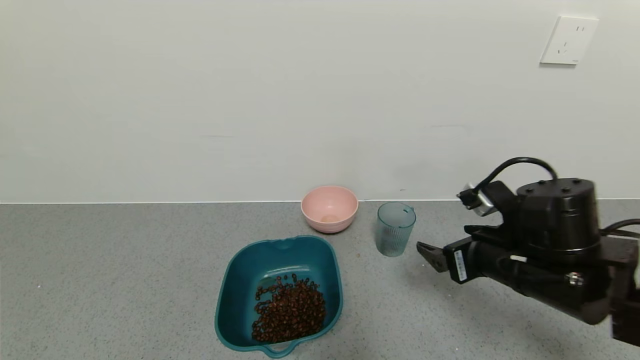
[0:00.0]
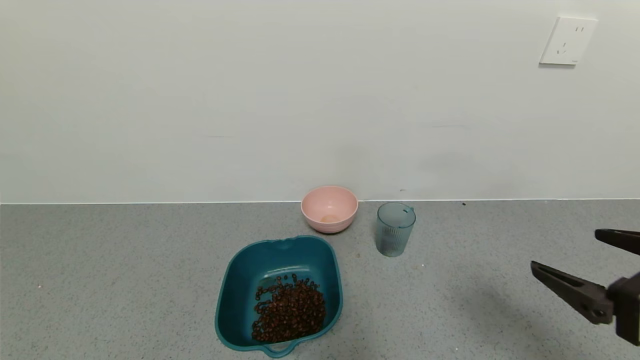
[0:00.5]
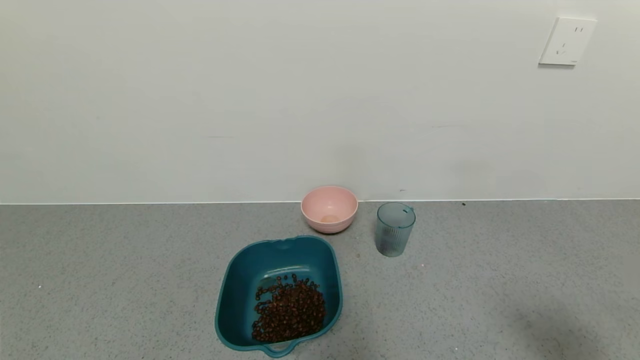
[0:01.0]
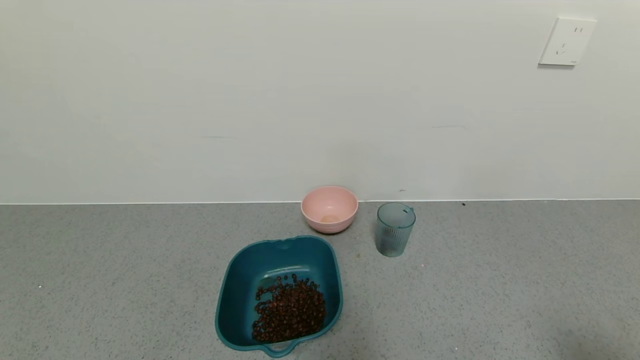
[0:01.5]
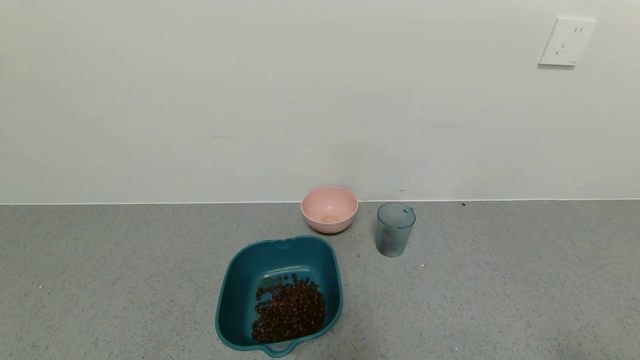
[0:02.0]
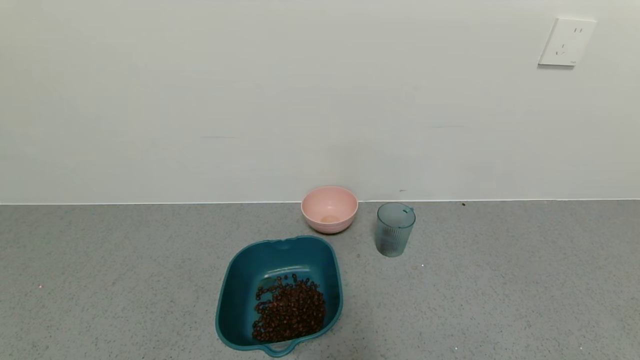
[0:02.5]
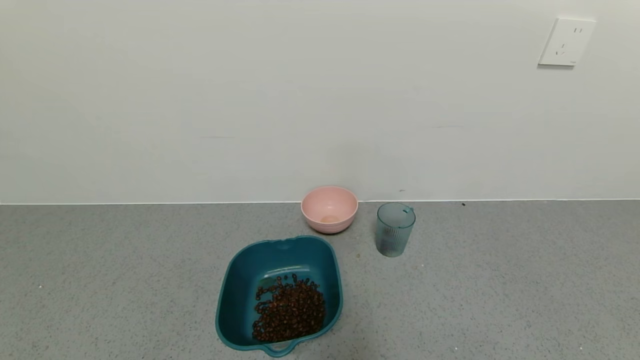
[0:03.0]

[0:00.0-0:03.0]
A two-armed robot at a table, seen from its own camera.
Task of the whole recording: use a gripper to pick up the cup and pour the solid into a bowl or tray.
0:00.0 to 0:01.5: The right gripper goes approximately 25 cm backward and to the right.

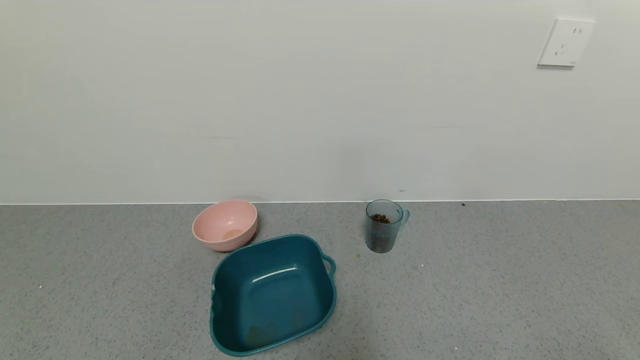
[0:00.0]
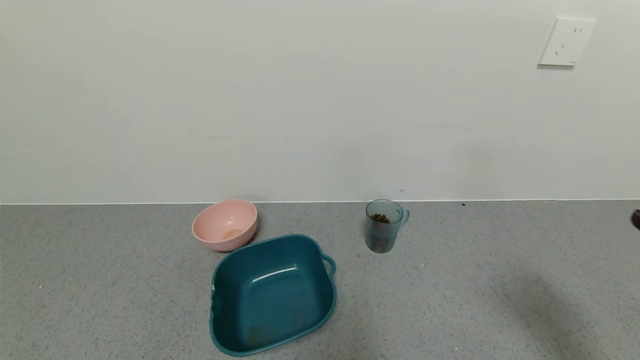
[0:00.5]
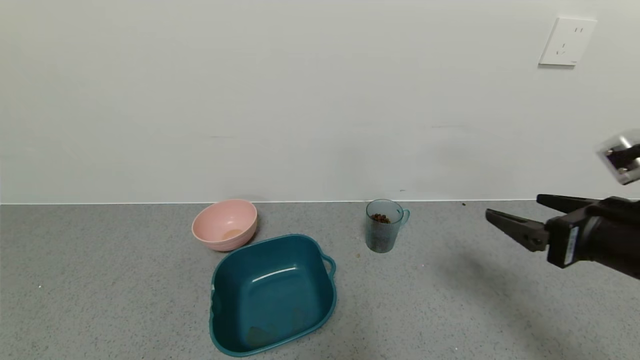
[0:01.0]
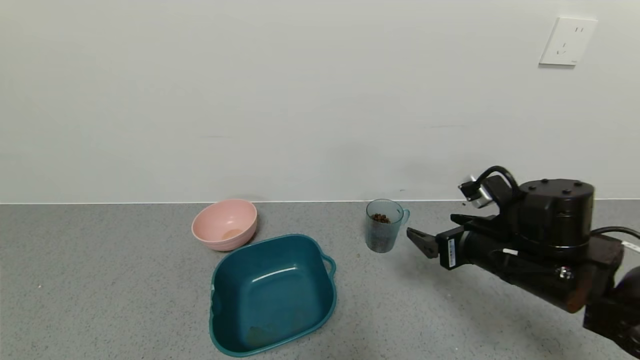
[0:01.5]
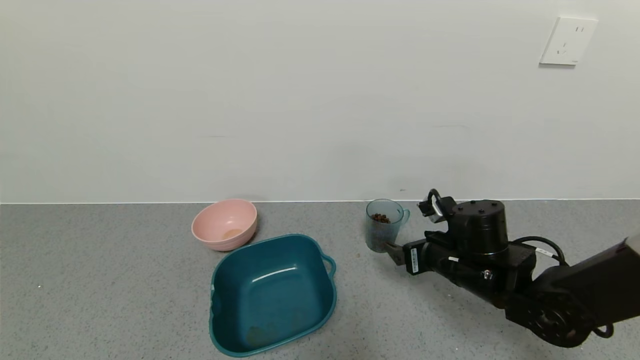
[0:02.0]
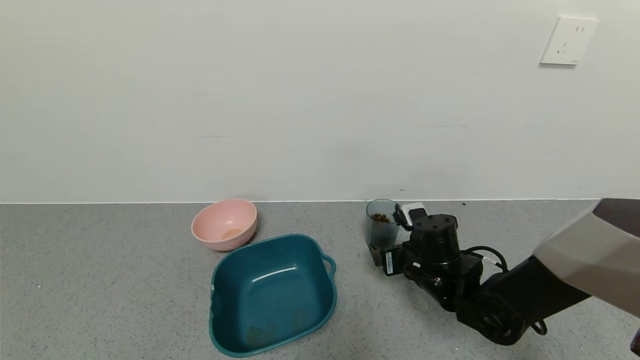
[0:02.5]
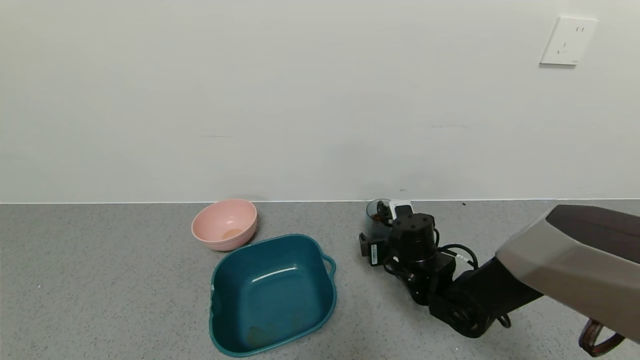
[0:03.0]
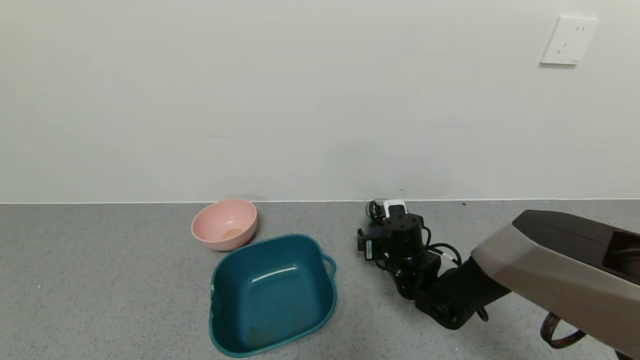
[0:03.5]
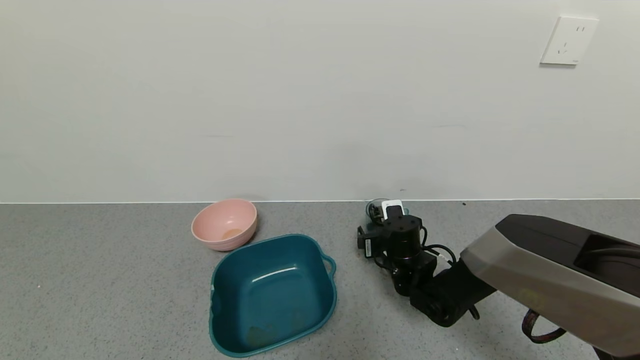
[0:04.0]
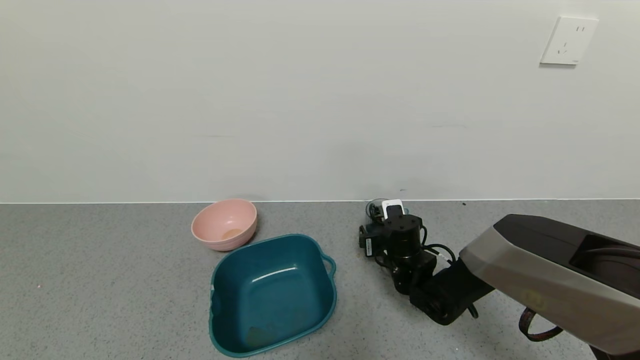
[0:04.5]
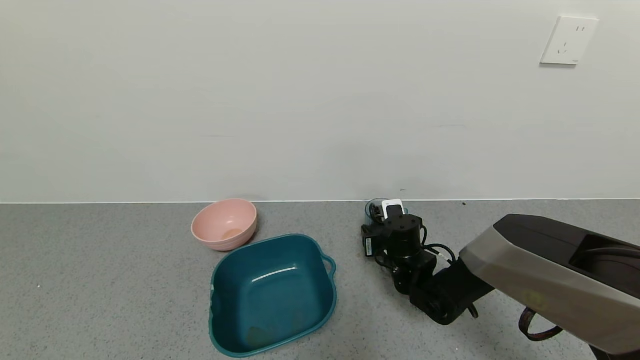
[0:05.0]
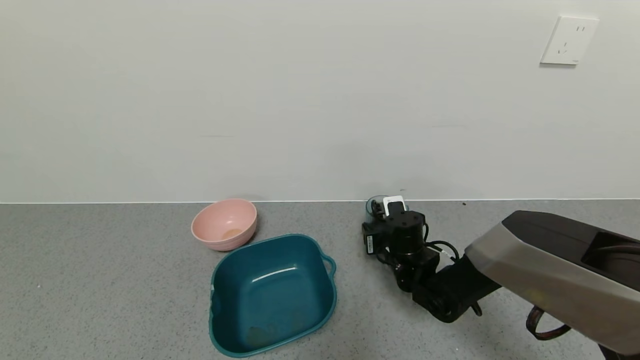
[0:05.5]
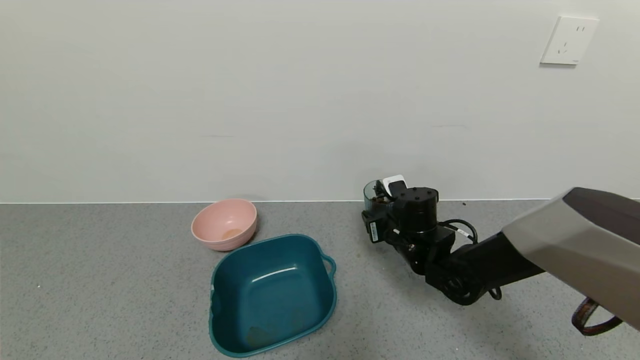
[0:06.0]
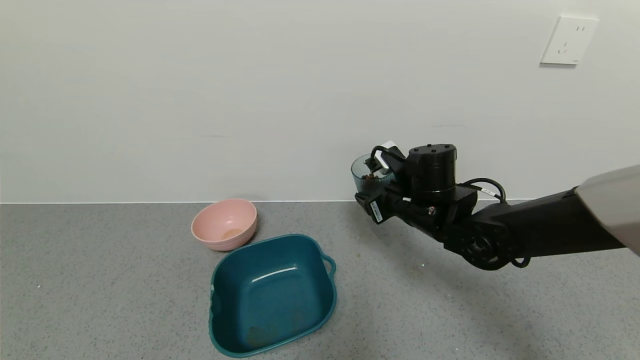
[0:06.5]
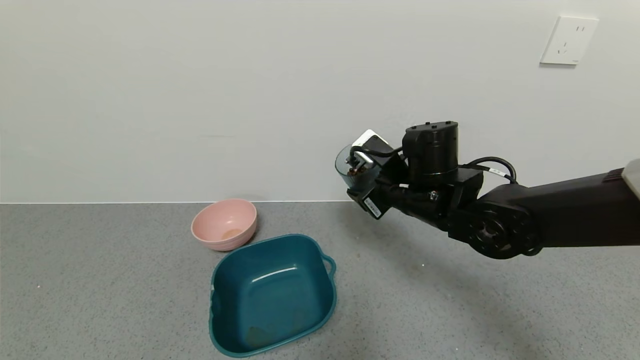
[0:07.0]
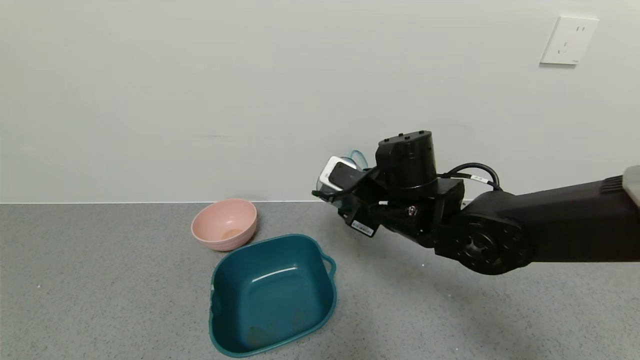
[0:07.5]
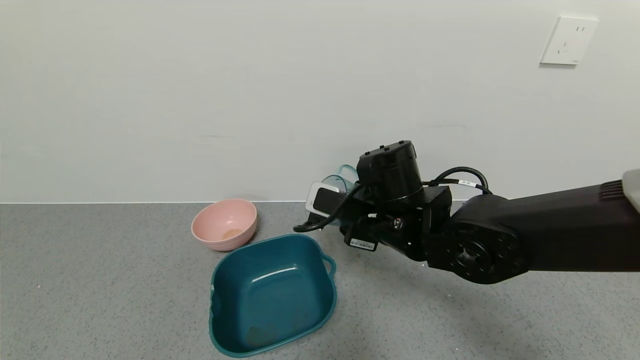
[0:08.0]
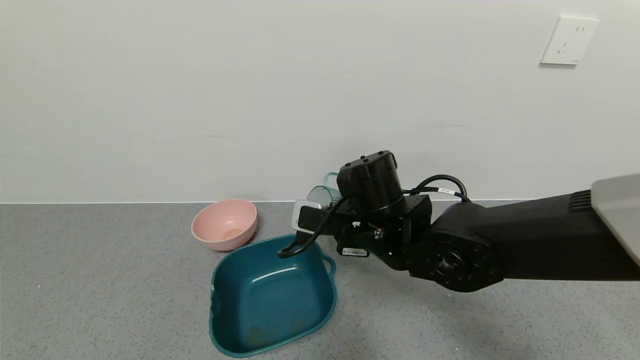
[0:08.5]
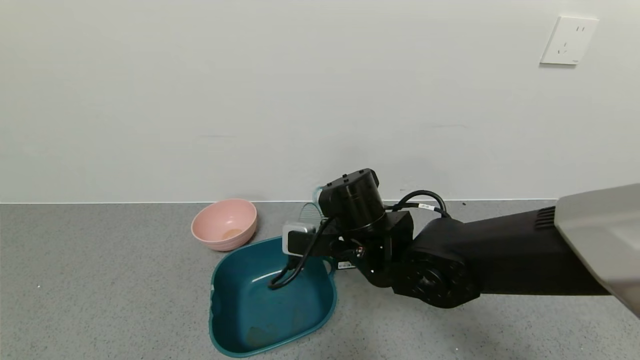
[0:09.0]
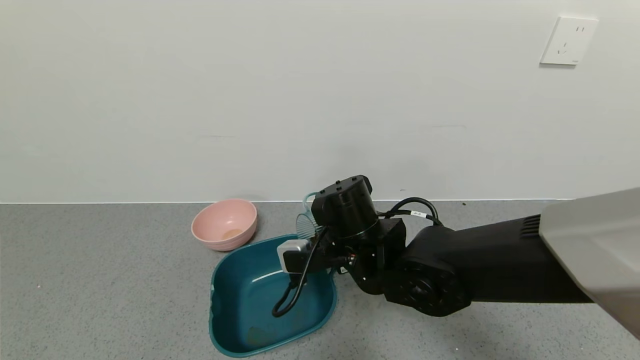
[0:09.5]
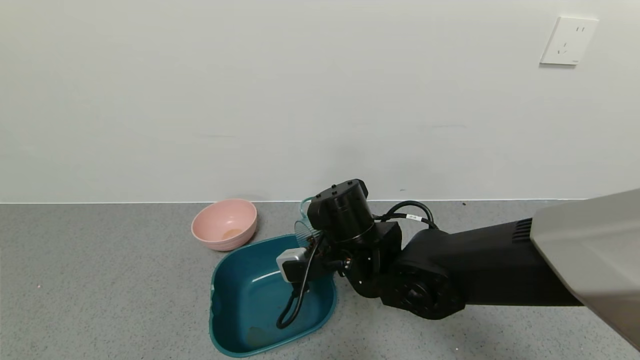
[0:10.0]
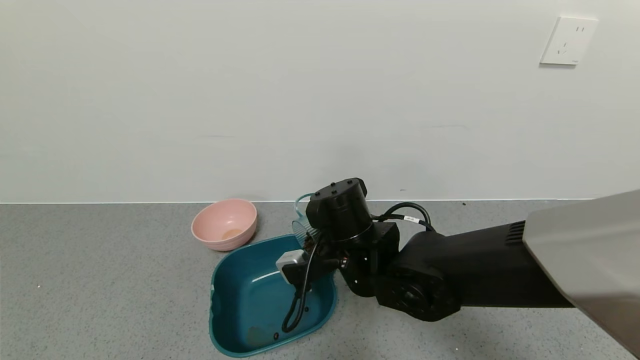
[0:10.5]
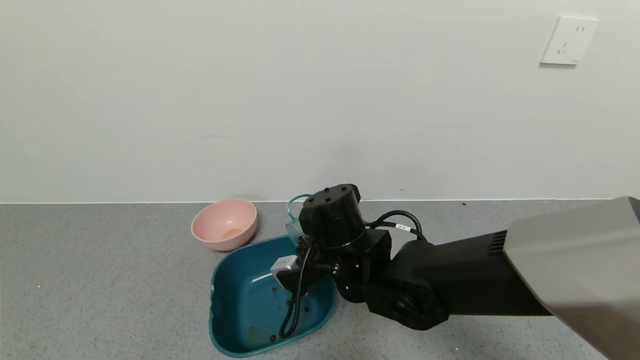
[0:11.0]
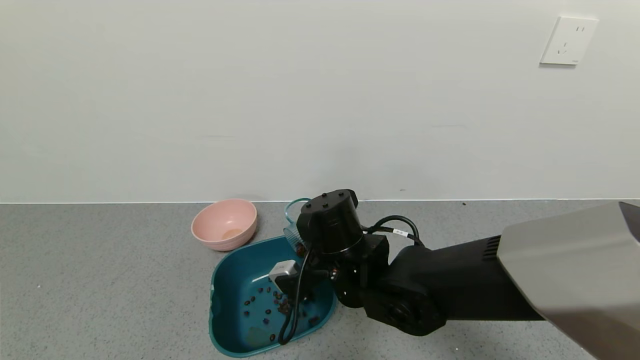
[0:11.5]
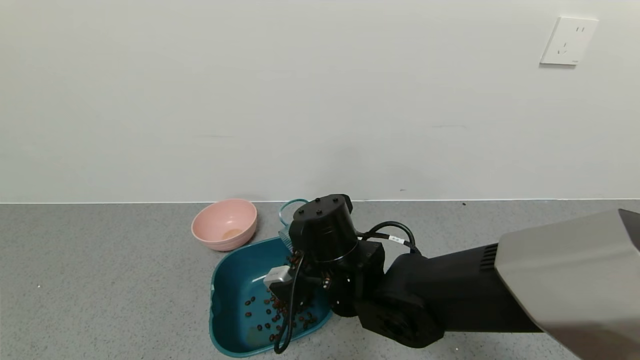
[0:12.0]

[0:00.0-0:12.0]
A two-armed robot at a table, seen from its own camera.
Task of the whole recording: use a gripper to pick up the cup and pour the solid into a bowl or tray.
Step, 0:00.0 to 0:05.0: Grasp the glass of coffee beans with the right gripper.
0:00.0 to 0:02.0: The right gripper travels forward and to the left by roughly 35 cm.
0:02.0 to 0:04.0: The right gripper goes approximately 15 cm forward, to the left and downward.
0:04.0 to 0:06.0: The right gripper shifts roughly 5 cm upward, and closes up.
0:06.0 to 0:08.0: The right gripper goes roughly 15 cm upward, backward and to the left.
0:08.0 to 0:10.0: The right gripper shifts by roughly 5 cm.
0:10.0 to 0:12.0: There are only small adjustments of the grippers.

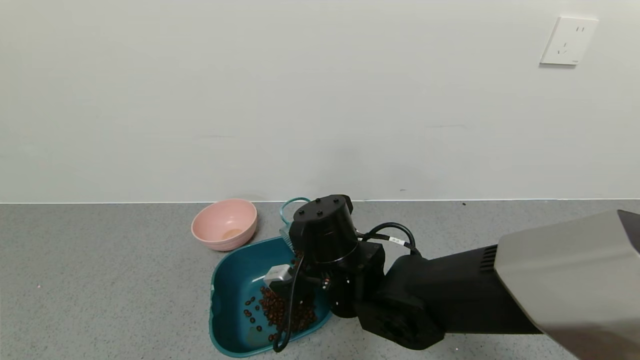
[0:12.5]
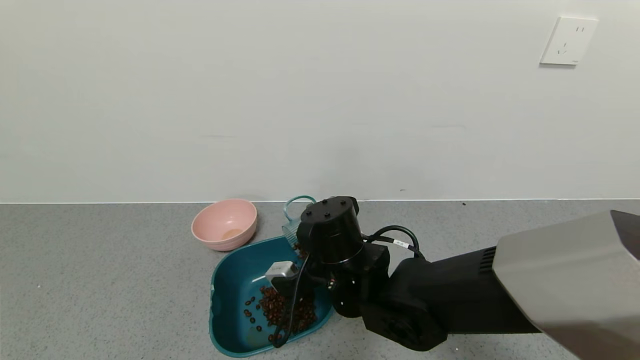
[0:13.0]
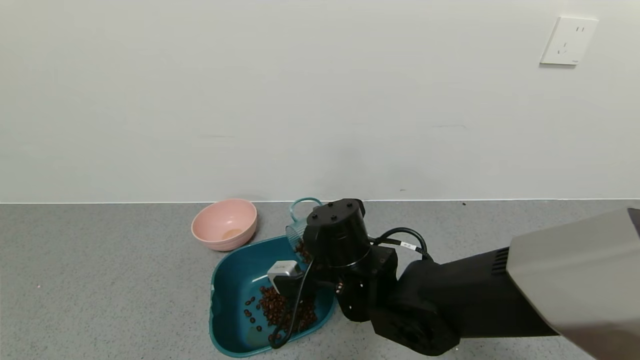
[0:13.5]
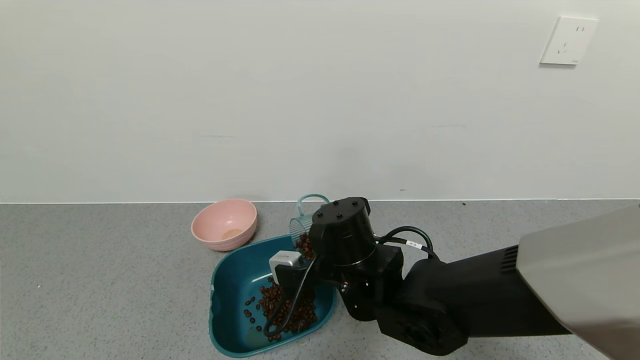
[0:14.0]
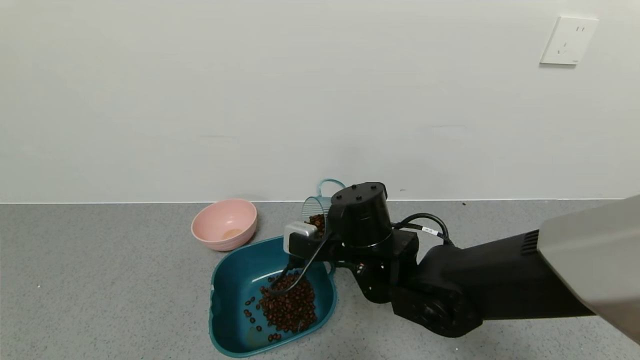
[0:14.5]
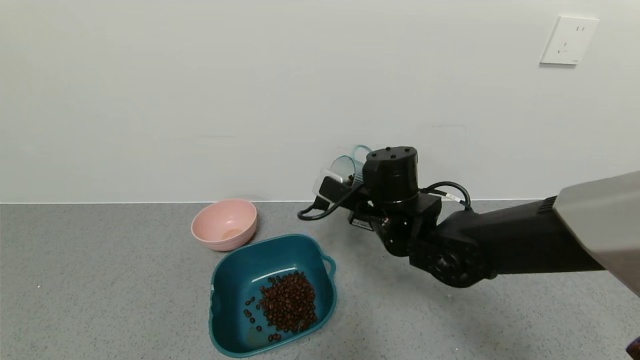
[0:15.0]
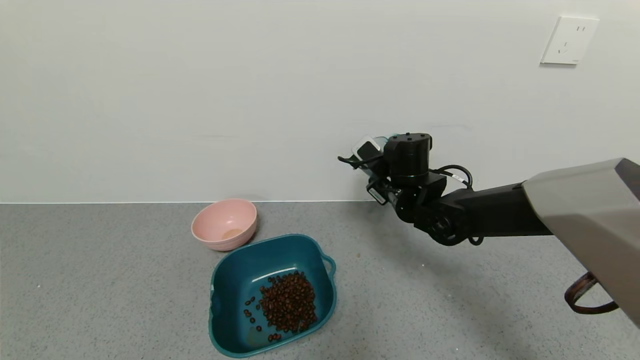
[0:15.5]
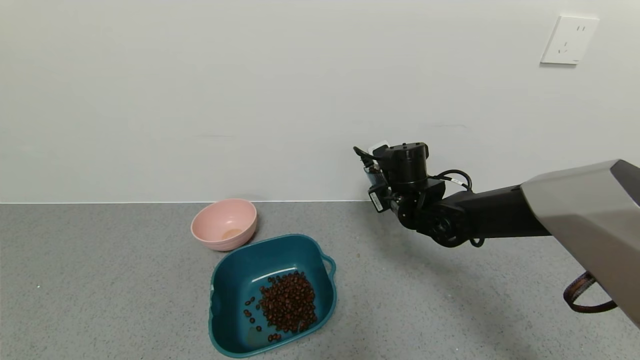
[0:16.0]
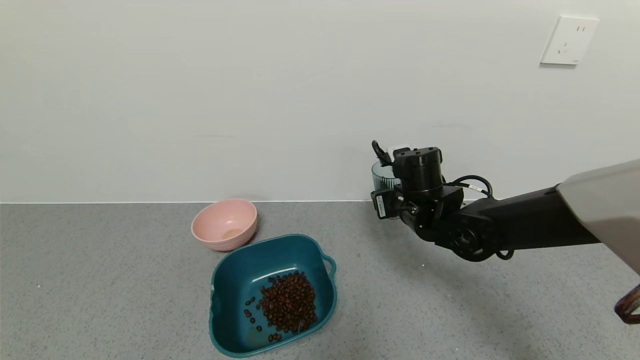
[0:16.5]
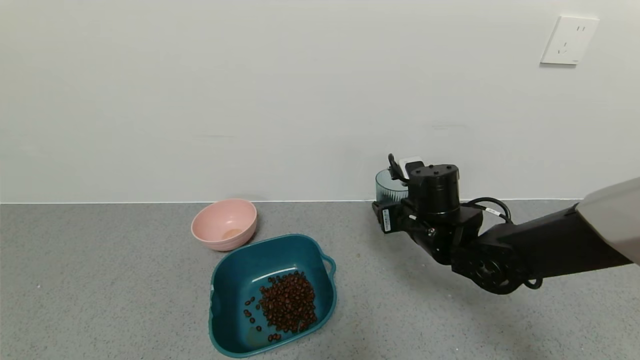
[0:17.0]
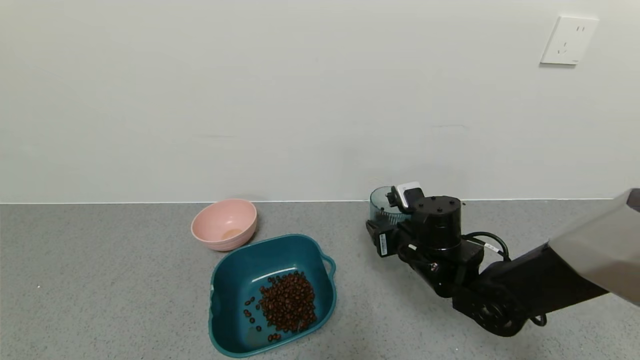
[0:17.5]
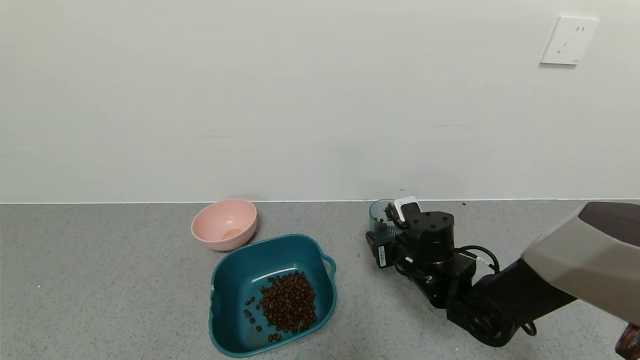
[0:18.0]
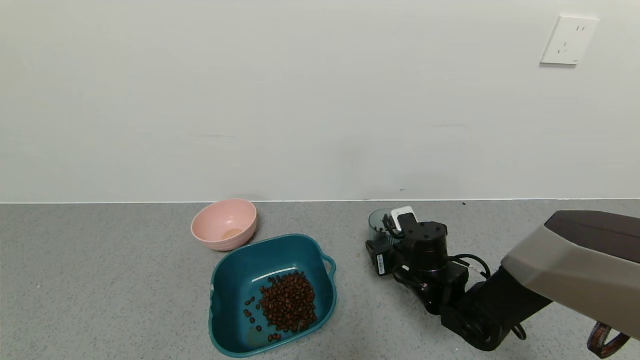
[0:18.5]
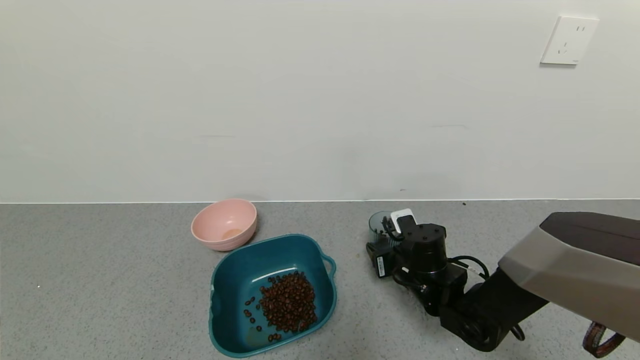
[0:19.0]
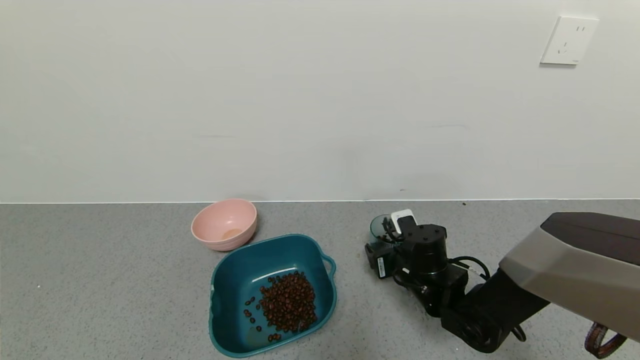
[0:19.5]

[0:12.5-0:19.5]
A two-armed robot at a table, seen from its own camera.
Task of the whole recording: use a gripper to pick up the cup and pour the solid into a bowl or tray.
Step, 0:12.5 to 0:15.0: Pour the coffee beans into the green bowl with the right gripper.
0:14.5 to 0:16.0: The right gripper shifts roughly 15 cm forward and to the right.
0:16.0 to 0:17.5: The right gripper shifts about 10 cm backward.
0:17.5 to 0:19.5: The right gripper heads downward, covering some 5 cm, and opens its fingers.
